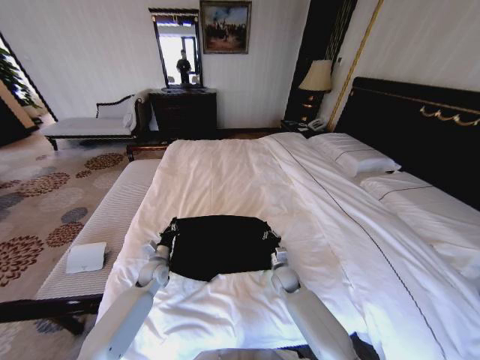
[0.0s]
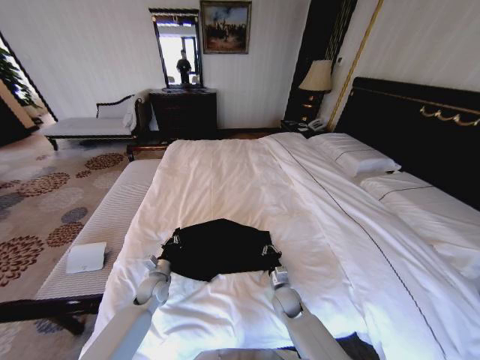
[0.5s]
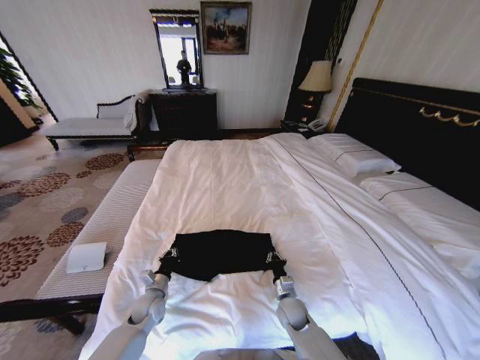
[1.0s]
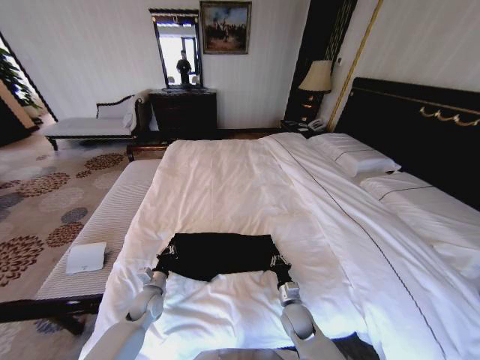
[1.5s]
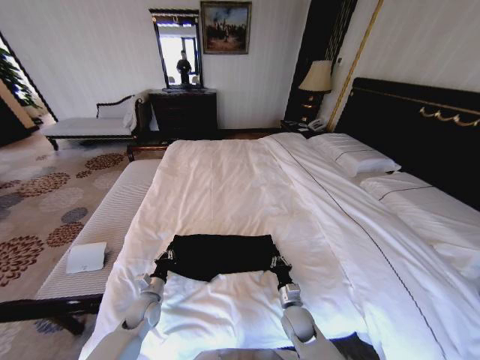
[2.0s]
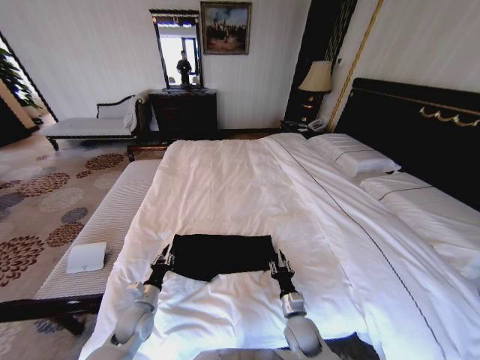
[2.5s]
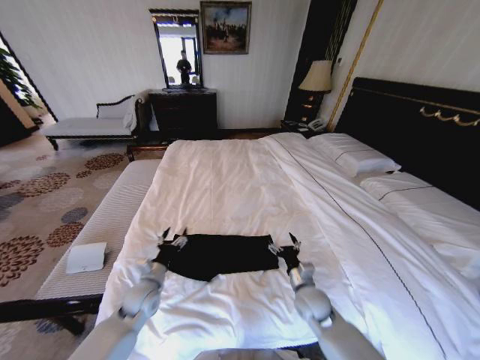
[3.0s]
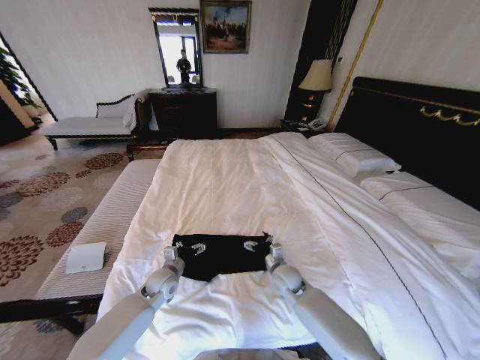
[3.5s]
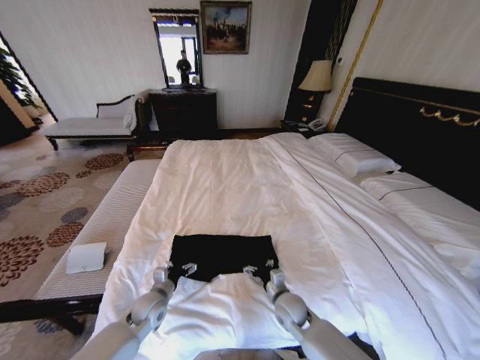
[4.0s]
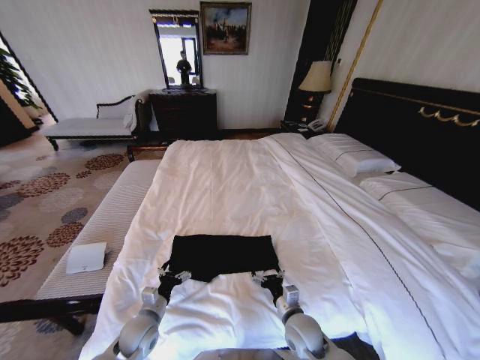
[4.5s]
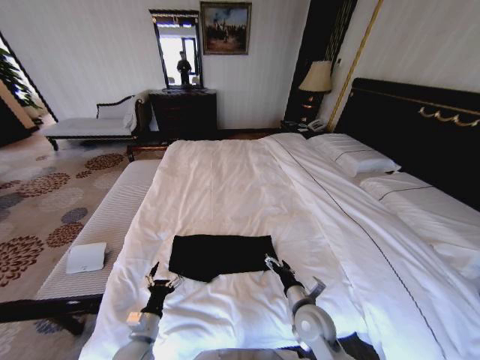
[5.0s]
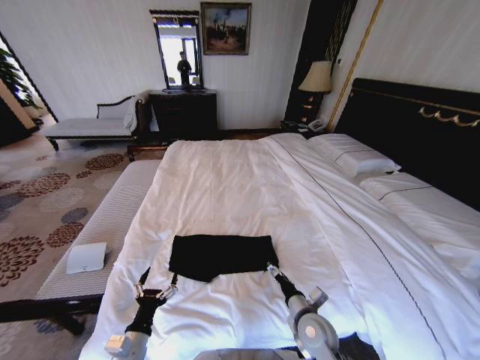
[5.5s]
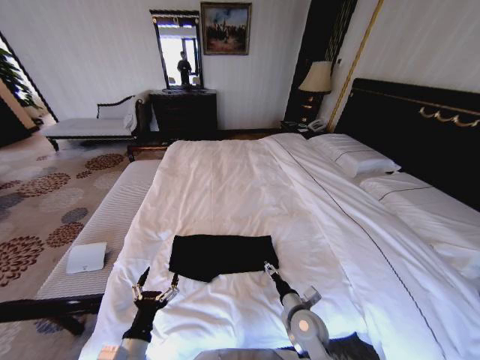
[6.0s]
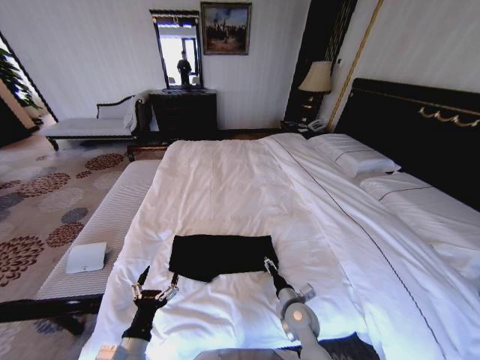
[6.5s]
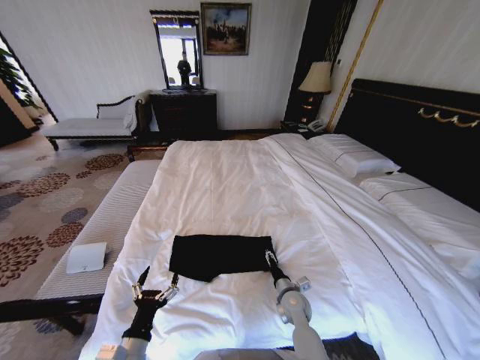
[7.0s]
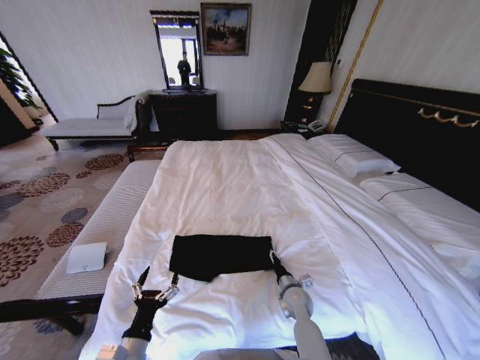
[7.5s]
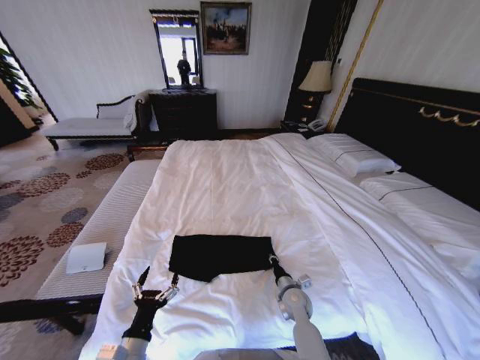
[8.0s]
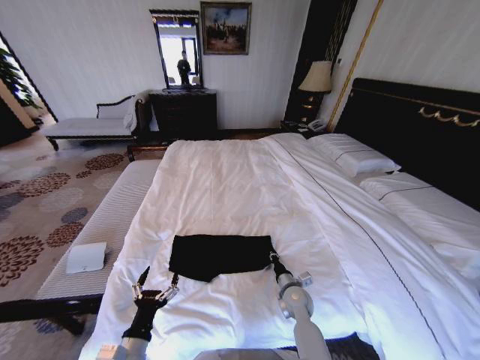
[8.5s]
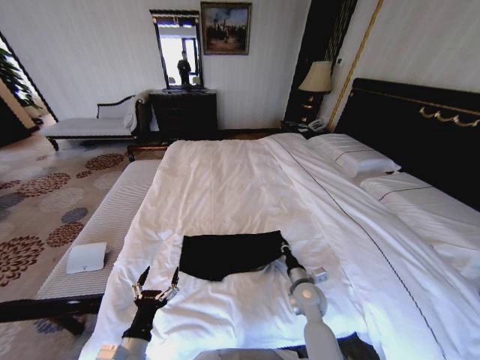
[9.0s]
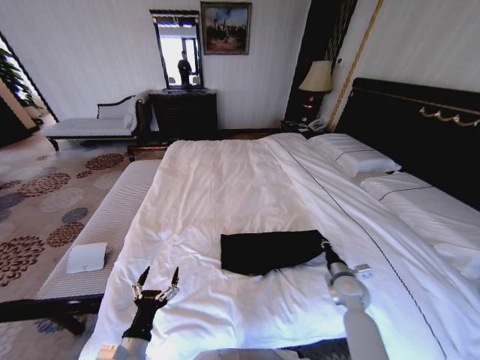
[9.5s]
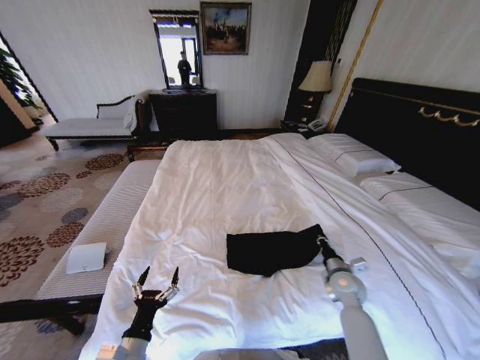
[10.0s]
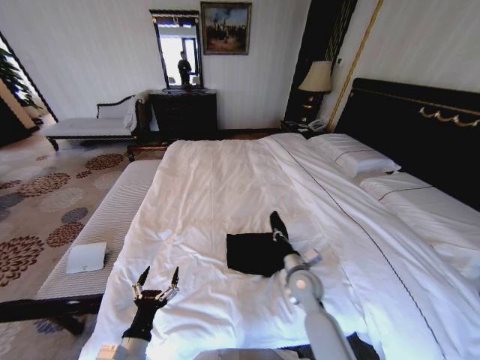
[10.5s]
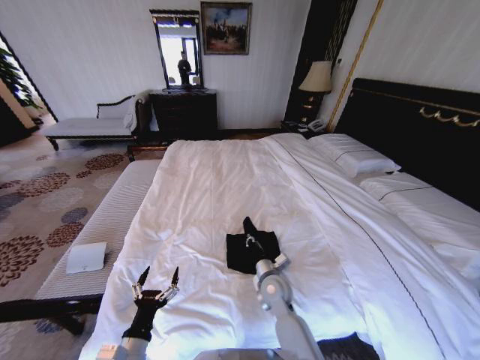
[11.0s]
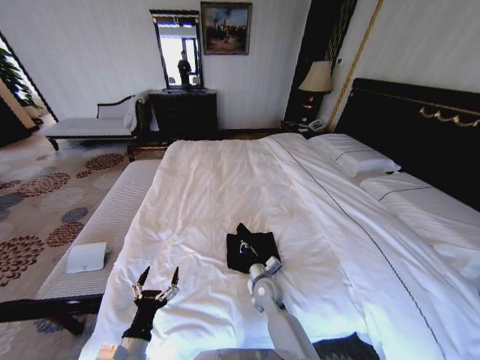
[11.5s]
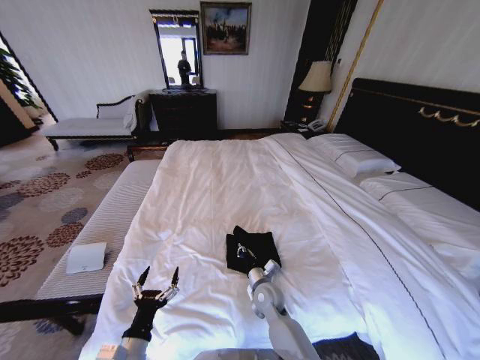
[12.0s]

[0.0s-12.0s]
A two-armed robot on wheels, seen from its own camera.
Task of the whole recording: Fold the clothes on the bed.
0.0s to 2.0s: Both grippers travel together backward, approximately 10 cm.
2.0s to 4.0s: The right gripper travels forward and back again, approximately 10 cm each way, and opens its fingers. The left gripper reaches roughly 5 cm forward, then returns, and opens up.
4.0s to 6.0s: The left gripper shifts approximately 20 cm backward, while the right gripper shifts by some 5 cm.
6.0s to 8.0s: The right gripper is displaced forward by roughly 5 cm, and closes up.
8.0s to 10.0s: The right gripper heads to the right and upward, covering roughly 15 cm.
10.0s to 12.0s: The right gripper goes some 25 cm to the left.

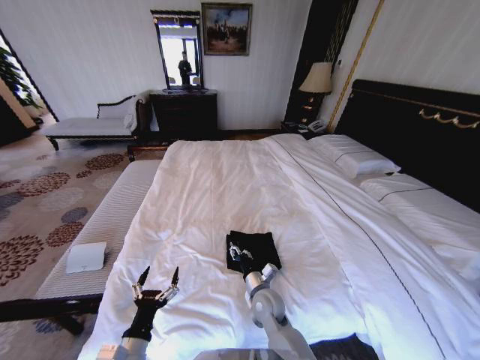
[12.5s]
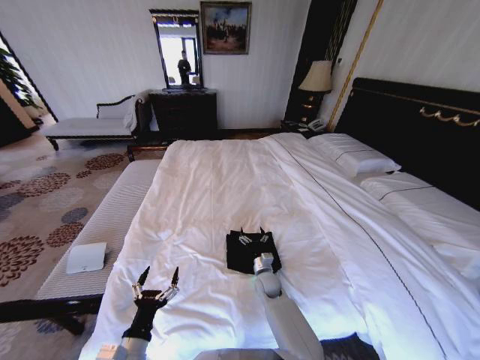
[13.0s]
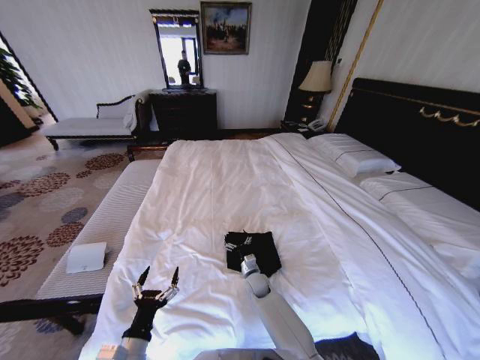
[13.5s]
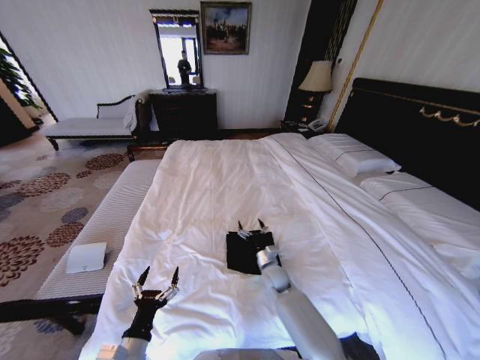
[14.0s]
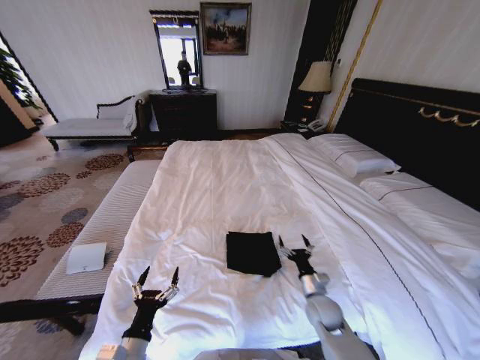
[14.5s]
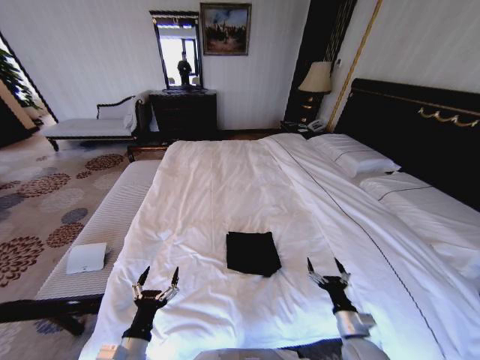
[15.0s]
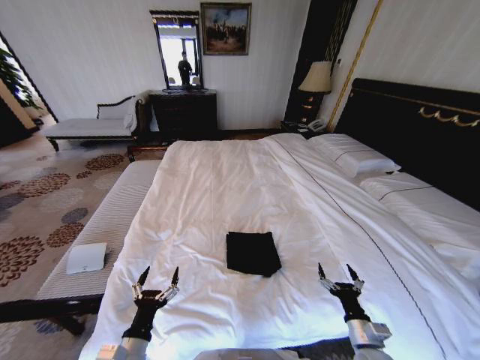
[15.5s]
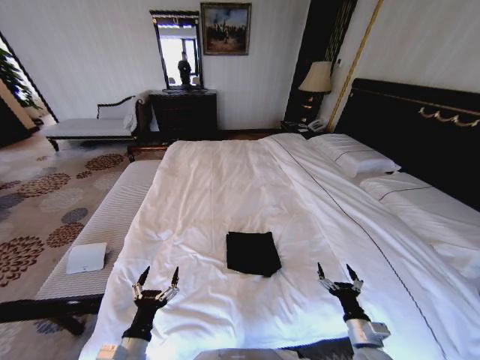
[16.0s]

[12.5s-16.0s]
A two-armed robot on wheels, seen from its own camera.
Task of the whole recording: Fold the clothes on the bed.
12.5s to 14.5s: The right gripper travels to the right by approximately 15 cm, and opens.
14.5s to 16.0s: The right gripper travels backward and to the right by roughly 15 cm.

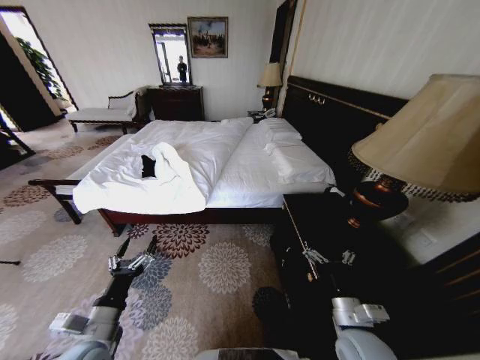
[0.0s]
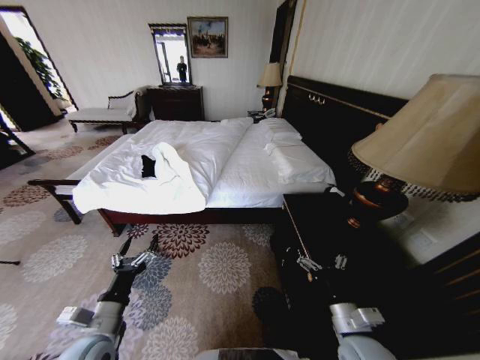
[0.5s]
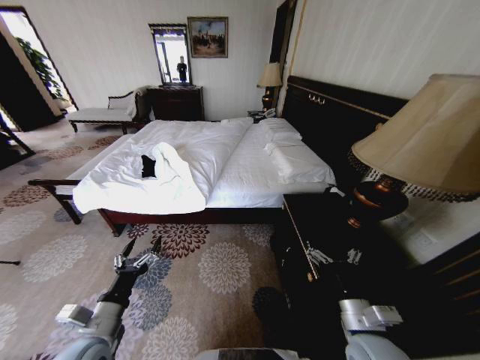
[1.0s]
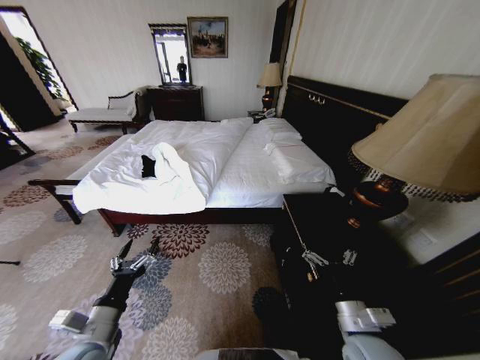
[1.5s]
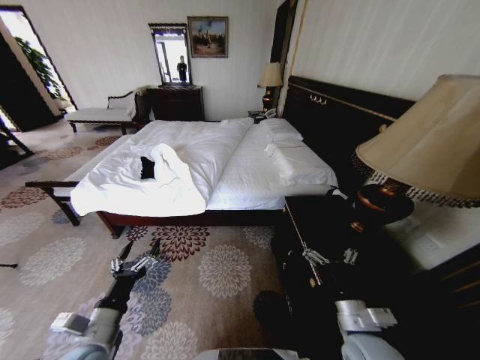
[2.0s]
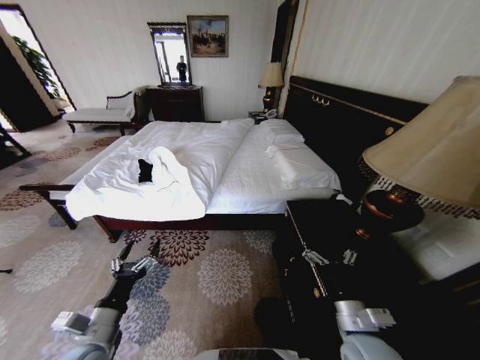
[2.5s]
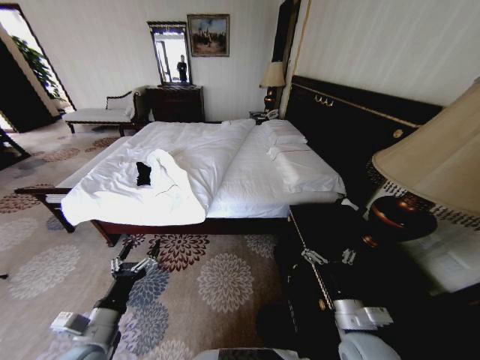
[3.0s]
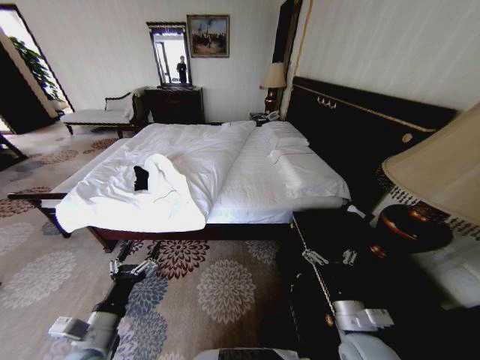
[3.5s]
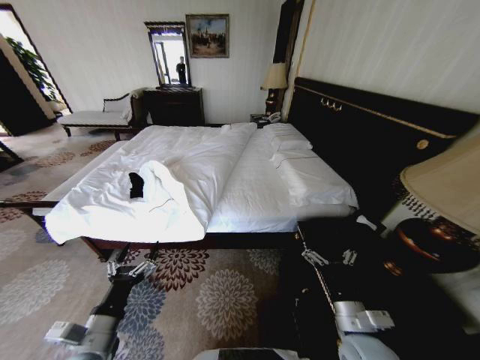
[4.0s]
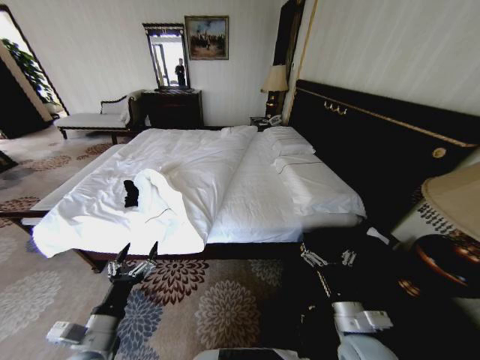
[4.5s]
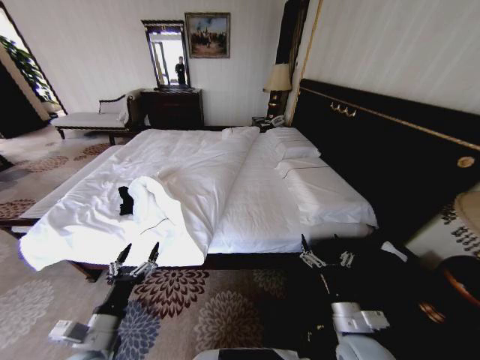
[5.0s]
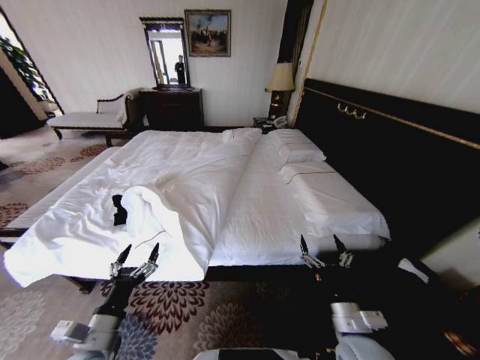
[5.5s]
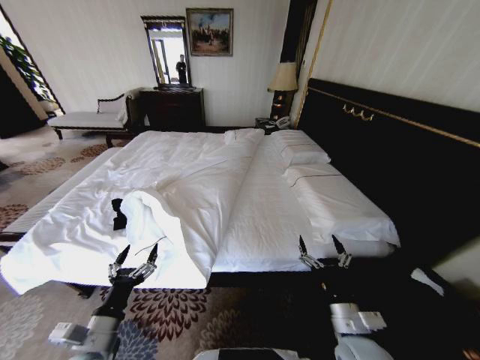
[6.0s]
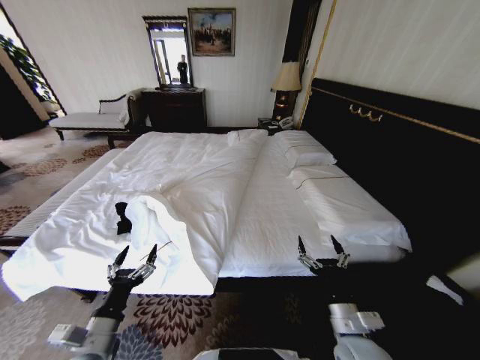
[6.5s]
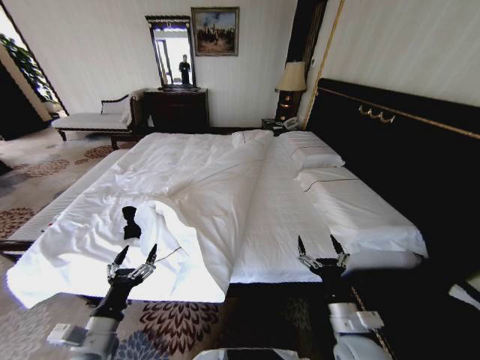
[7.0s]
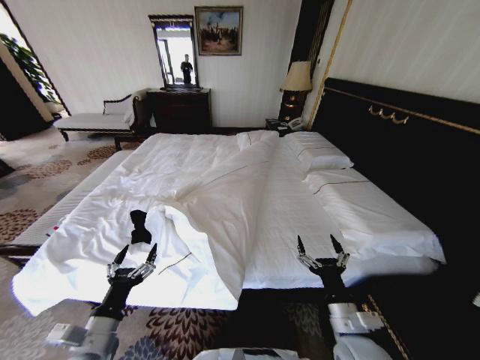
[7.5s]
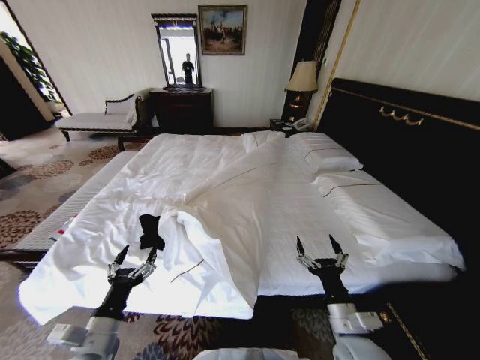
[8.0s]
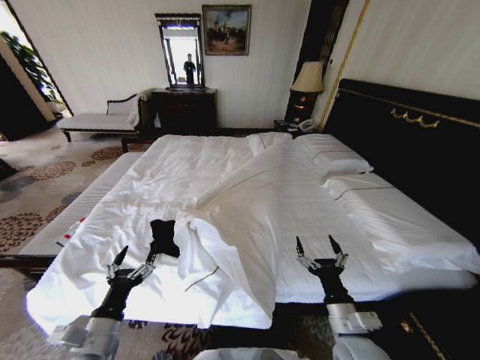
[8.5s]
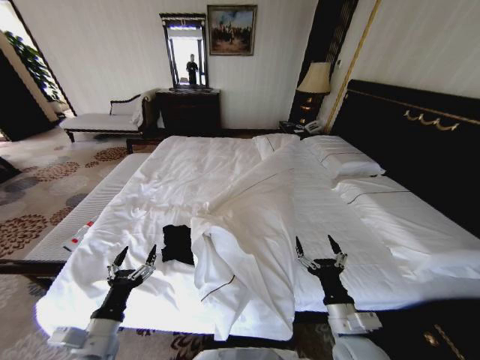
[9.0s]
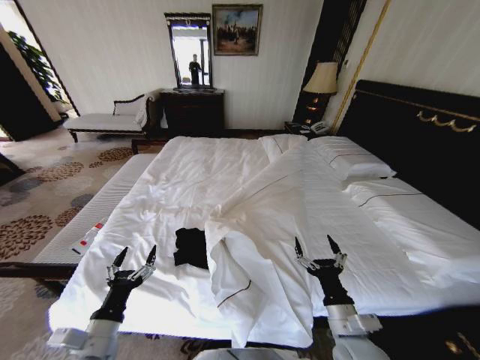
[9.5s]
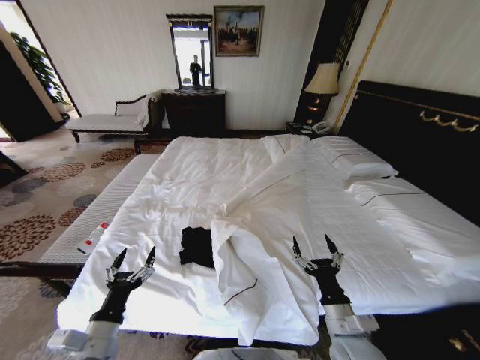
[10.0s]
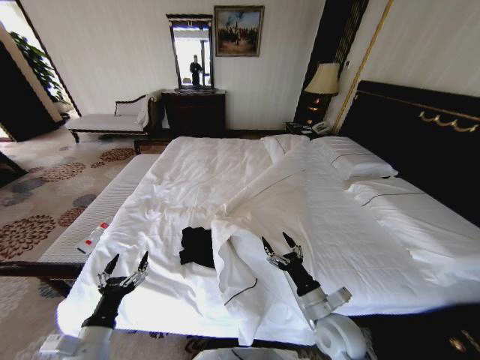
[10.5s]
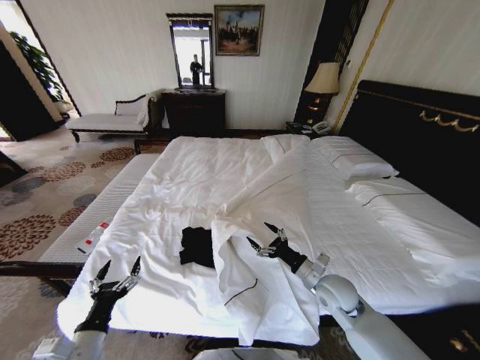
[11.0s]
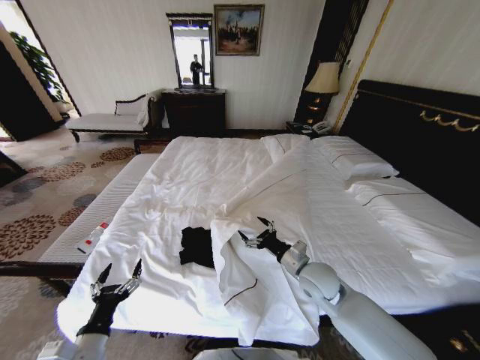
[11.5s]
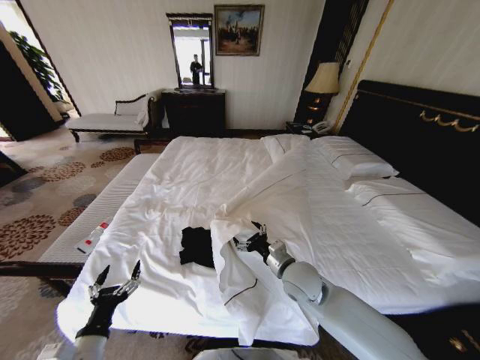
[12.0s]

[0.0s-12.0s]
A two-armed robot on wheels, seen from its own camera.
Task of the whole recording: Fold the clothes on the bed.
10.0s to 12.0s: The right gripper moves forward and to the left, roughly 15 cm.
